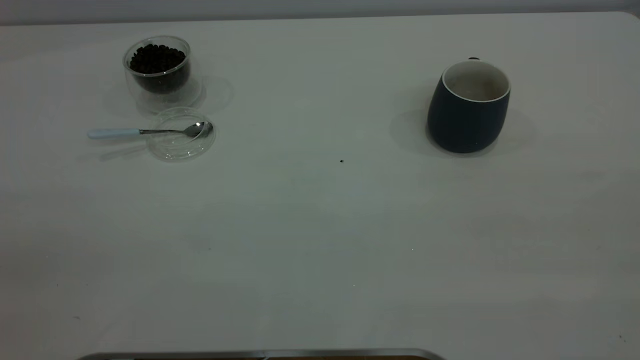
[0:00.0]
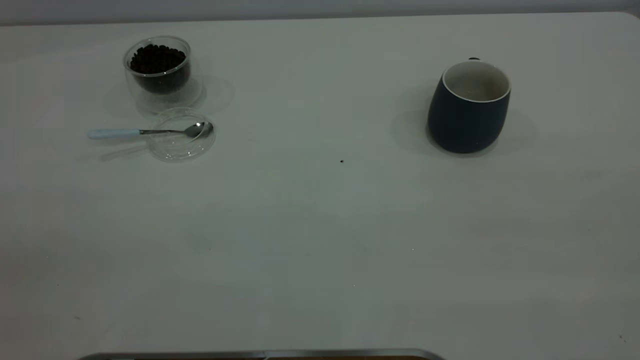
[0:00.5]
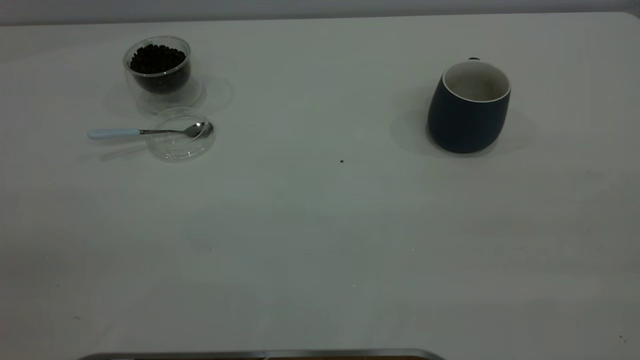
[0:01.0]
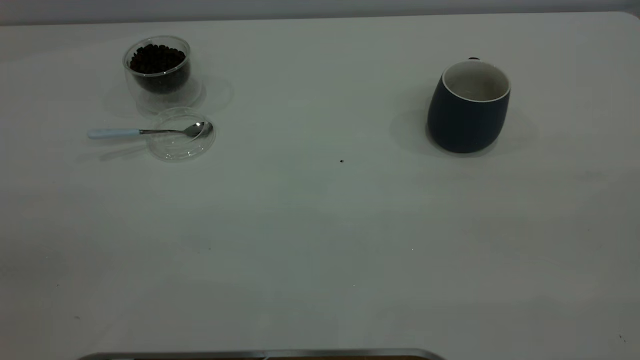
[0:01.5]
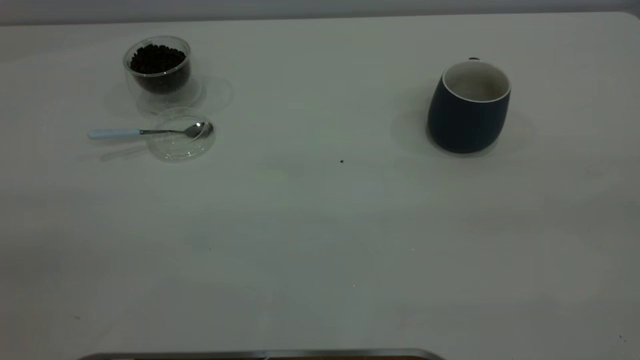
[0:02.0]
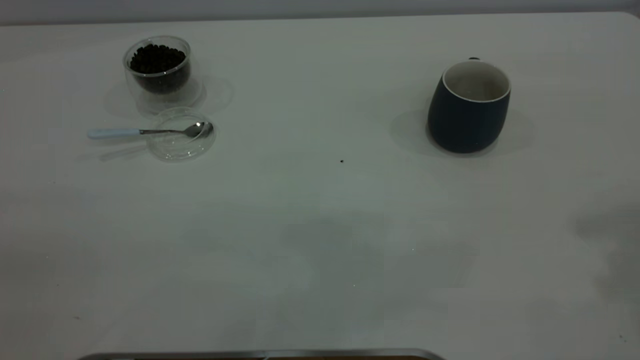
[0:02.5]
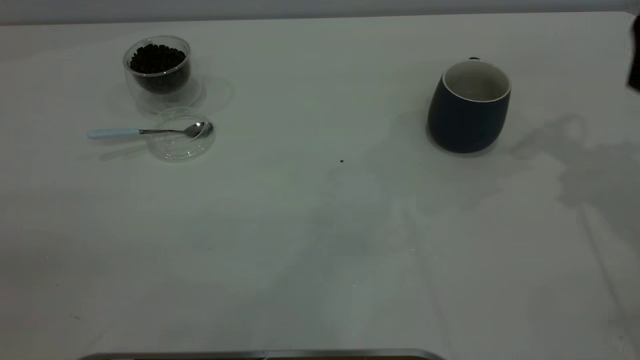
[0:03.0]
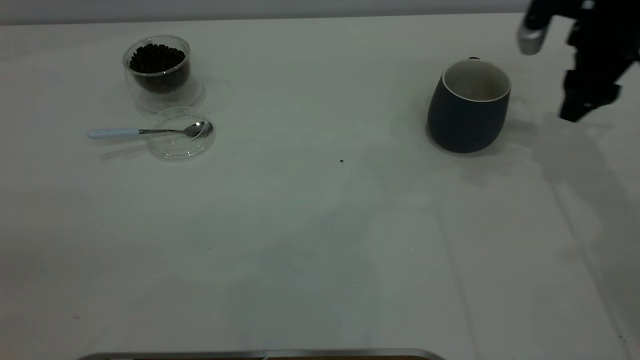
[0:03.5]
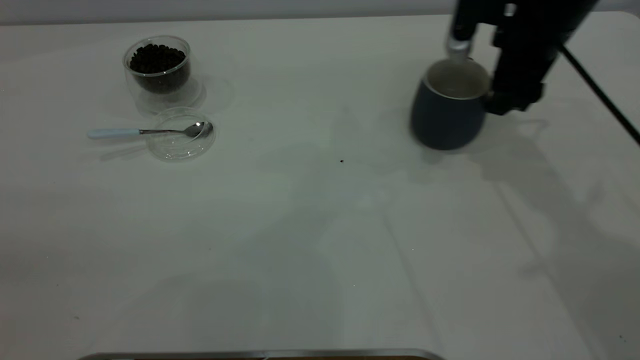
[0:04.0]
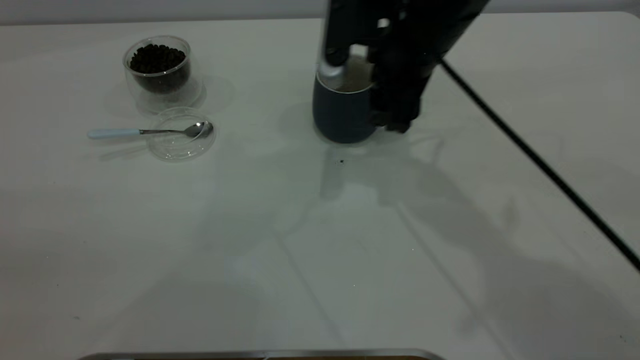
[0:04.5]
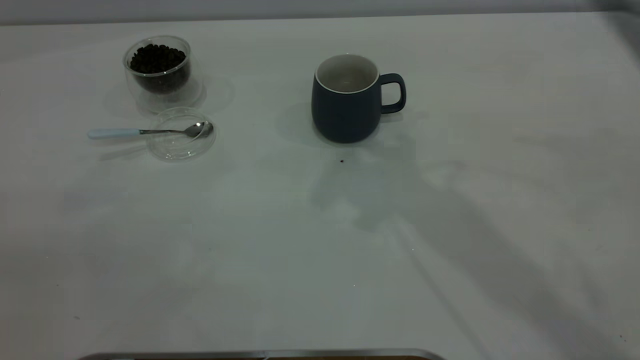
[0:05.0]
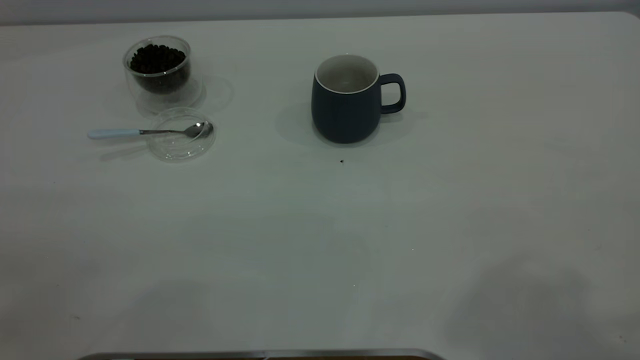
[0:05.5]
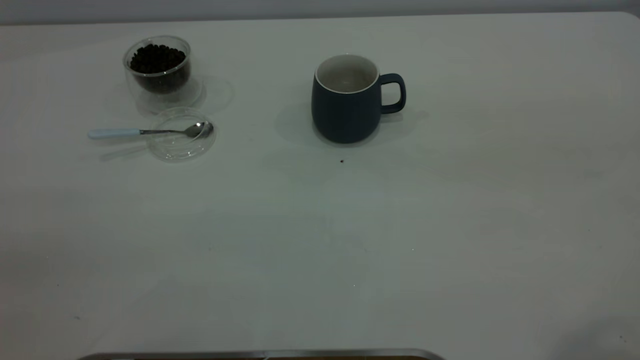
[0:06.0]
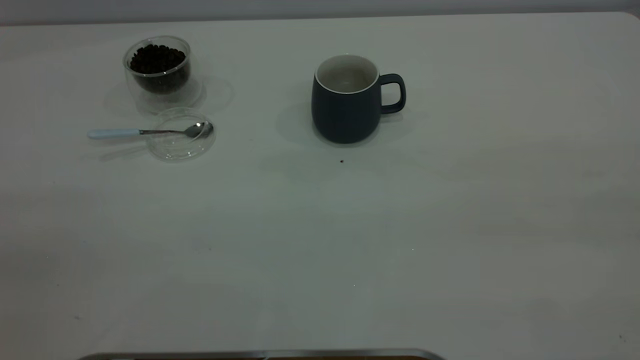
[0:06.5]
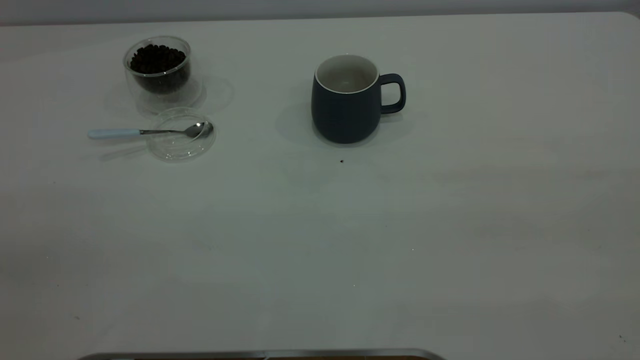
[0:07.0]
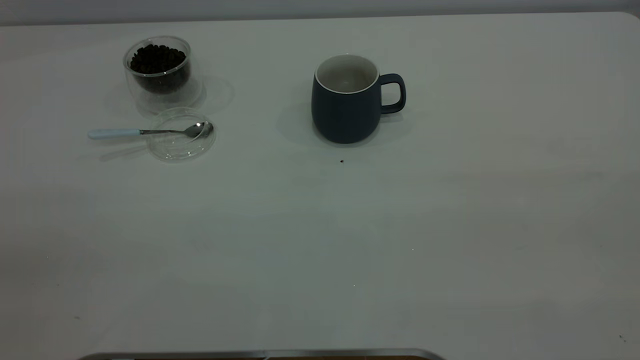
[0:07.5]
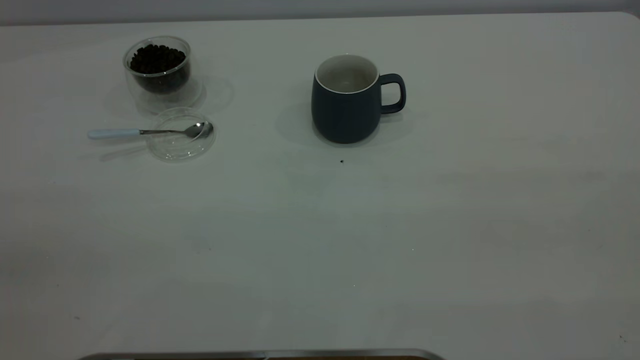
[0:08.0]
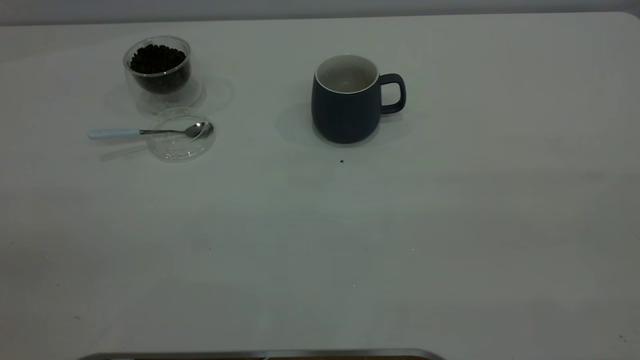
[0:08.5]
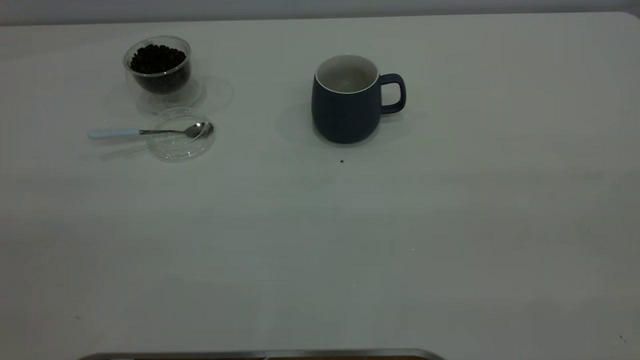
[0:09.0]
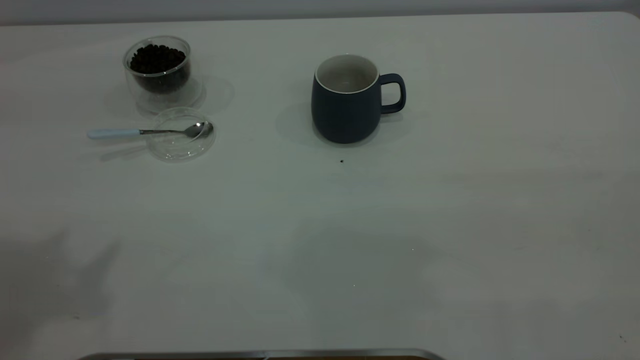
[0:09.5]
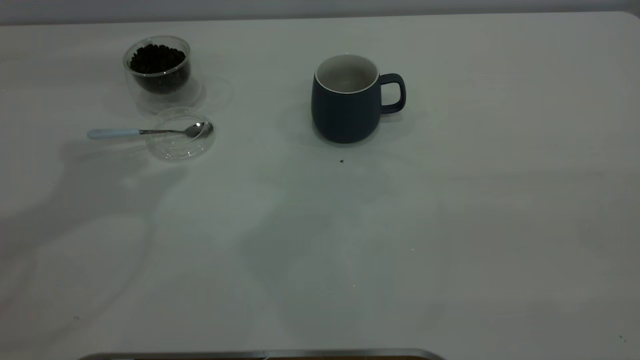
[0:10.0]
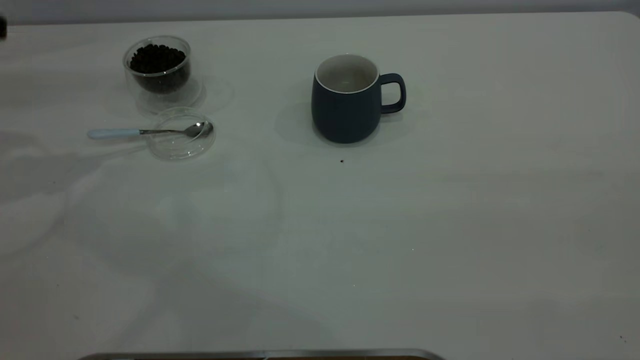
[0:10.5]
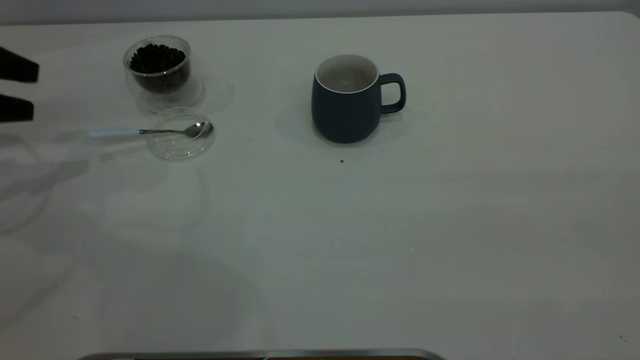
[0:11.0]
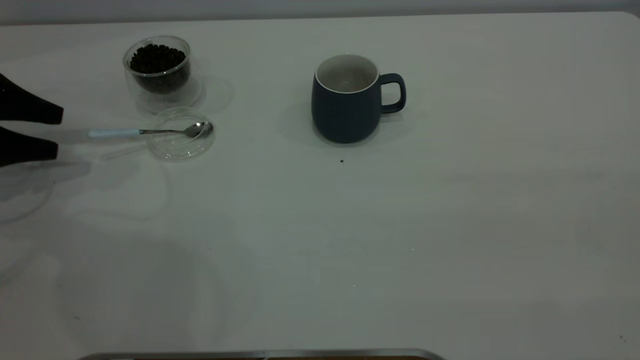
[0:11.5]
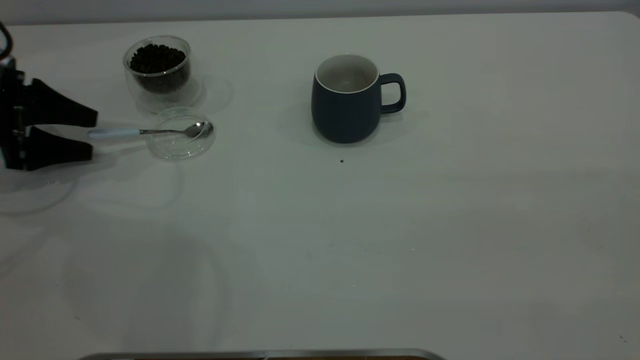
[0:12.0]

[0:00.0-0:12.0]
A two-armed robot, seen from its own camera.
Task of the whole recording: the right gripper place the grey cup in the center of the table, the left gripper take the blue spoon from the cup lid and scoop out the coffee beans from the coffee cup and put them into the grey cup, the left gripper put the spoon back into the cup lid.
Step, 0:00.0 to 0:04.5: Move the cup to the center of view.
0:02.0 to 0:04.0: The right gripper moves forward and downward, about 50 cm.
0:04.0 to 0:06.0: The right gripper heads backward and upward, covering approximately 40 cm.
0:10.0 to 0:12.0: The left gripper is displaced downward and to the left by roughly 30 cm.

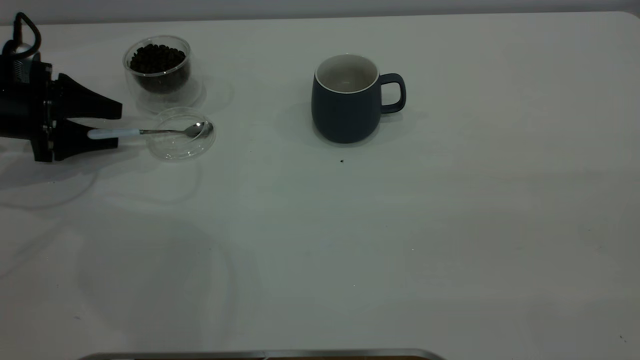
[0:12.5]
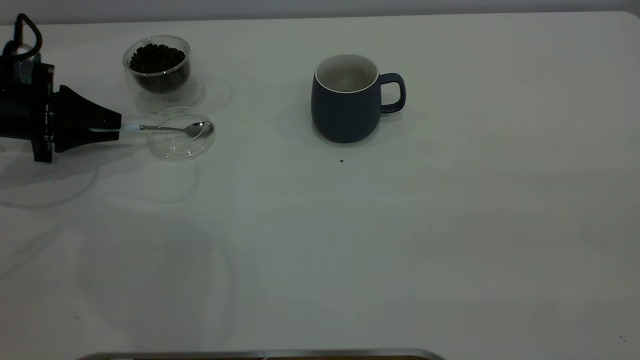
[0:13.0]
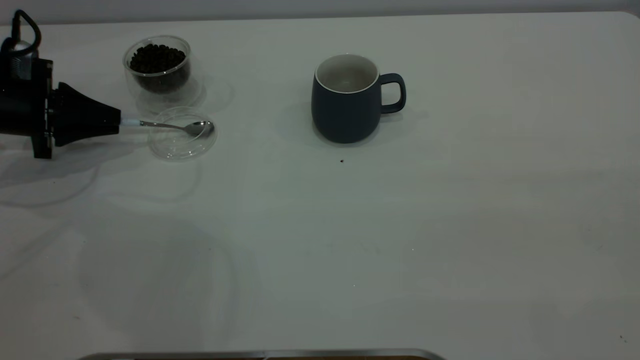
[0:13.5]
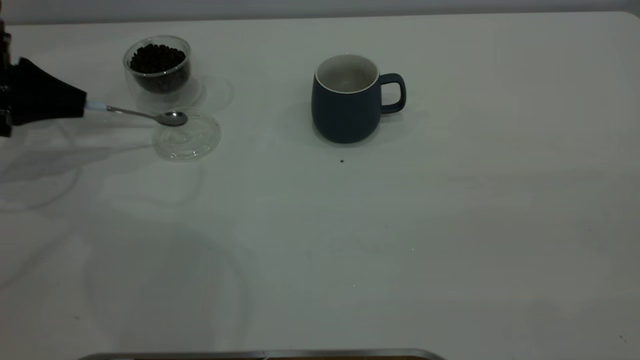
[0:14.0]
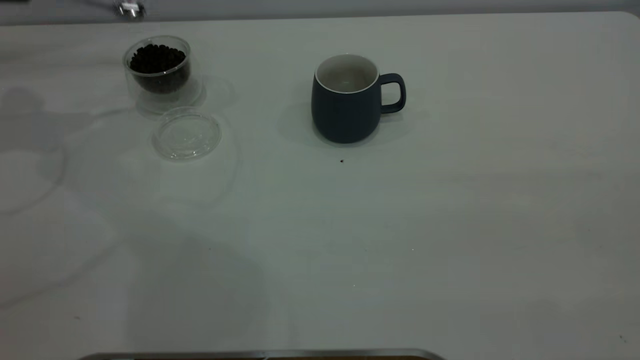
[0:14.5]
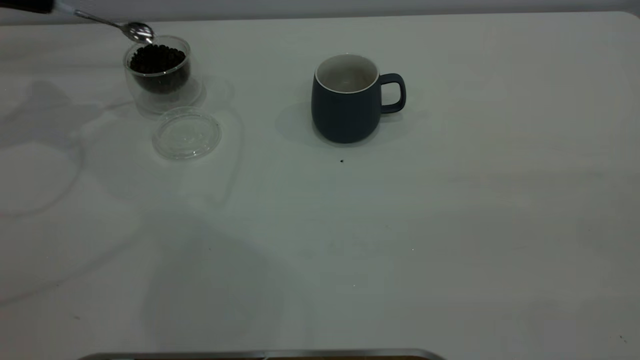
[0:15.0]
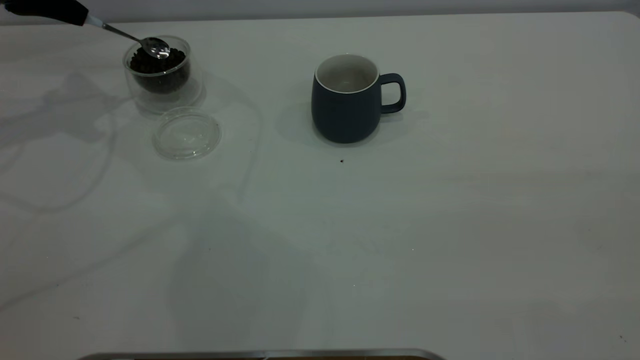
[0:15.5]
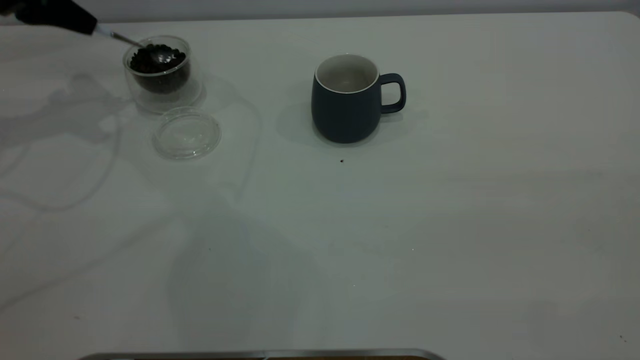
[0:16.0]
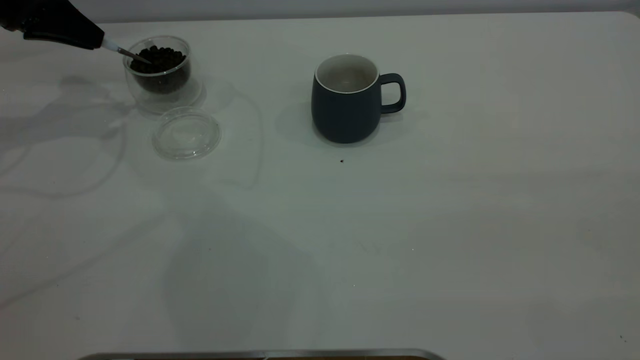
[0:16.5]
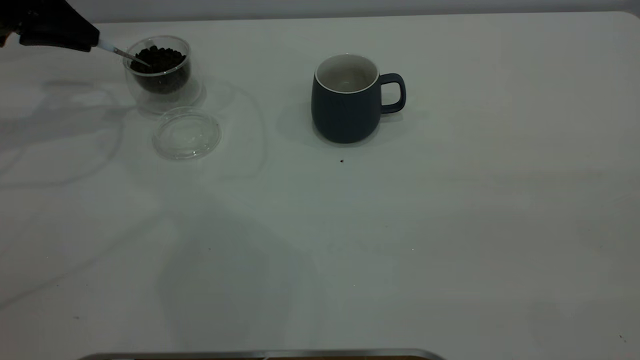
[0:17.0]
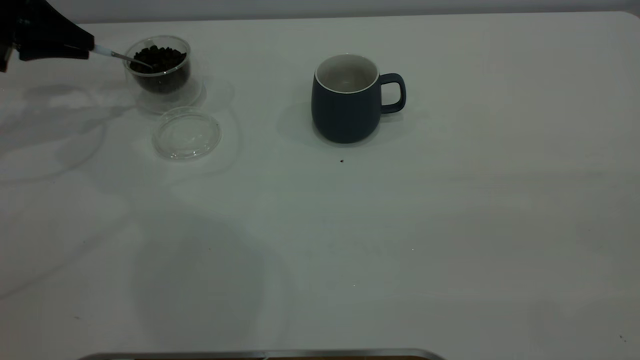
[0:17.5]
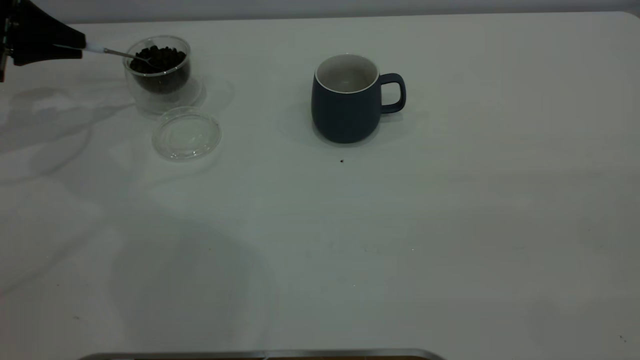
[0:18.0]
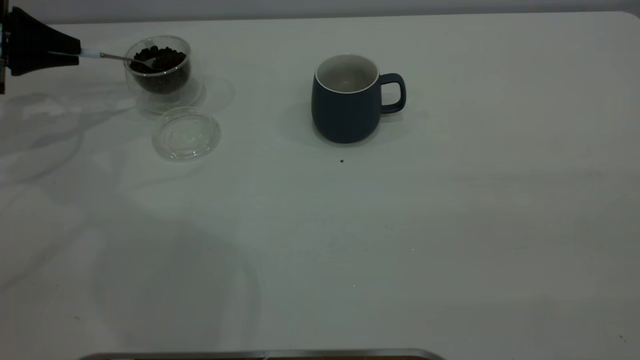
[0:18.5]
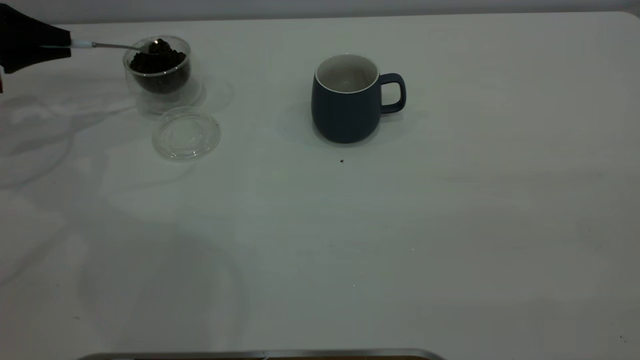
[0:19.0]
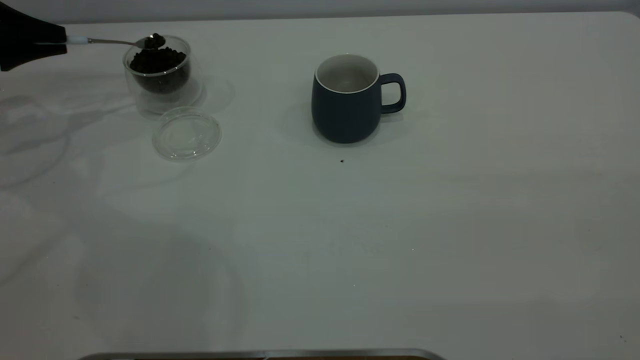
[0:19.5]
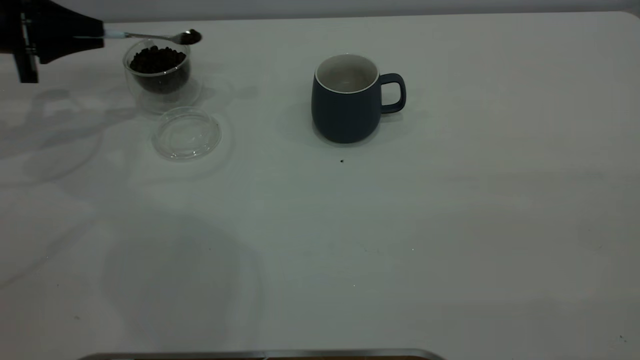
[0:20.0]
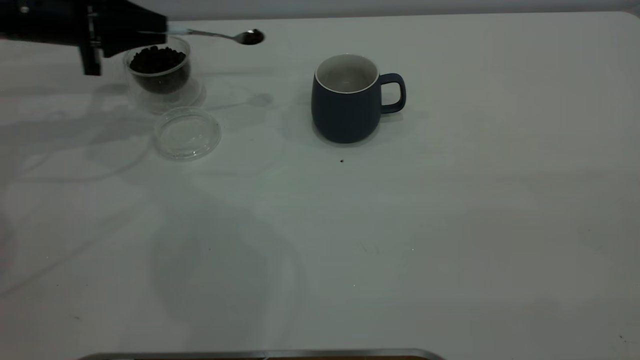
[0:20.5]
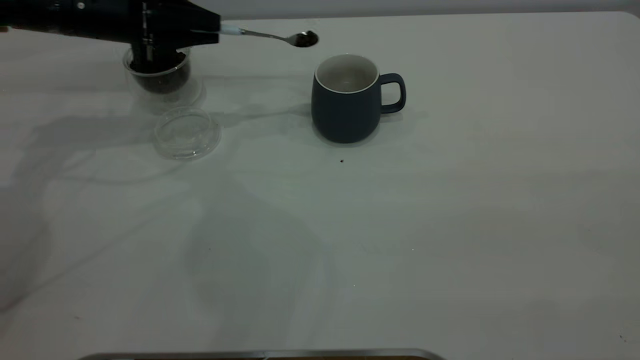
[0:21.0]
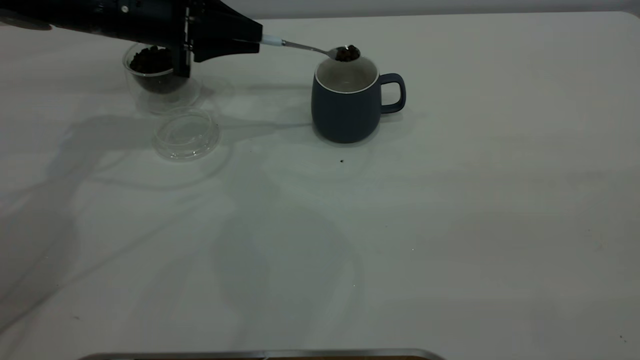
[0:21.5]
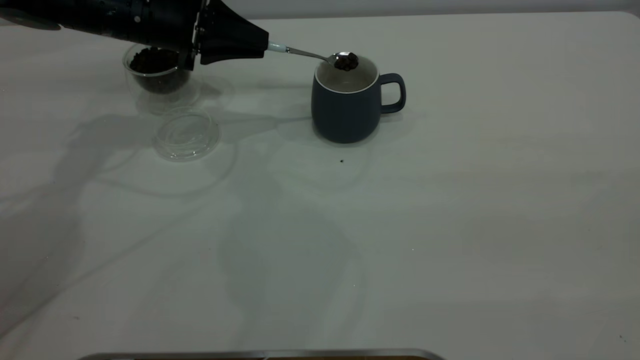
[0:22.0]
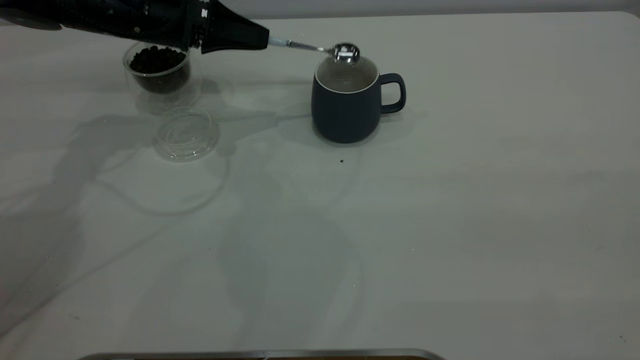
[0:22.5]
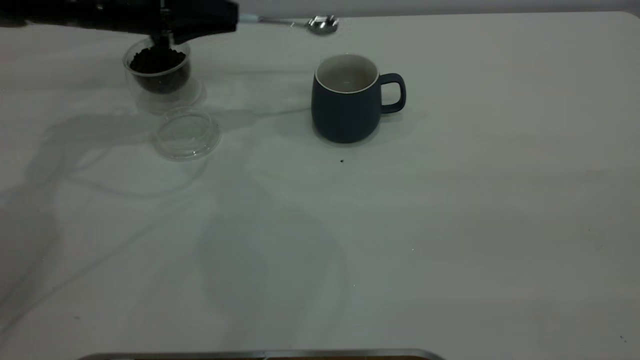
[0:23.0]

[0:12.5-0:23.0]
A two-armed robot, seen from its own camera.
Task of the whole recording: the right gripper place the grey cup in the center of the table, the left gripper take the blue spoon from the cup lid and scoop out the coffee beans from the coffee cup and put them into the grey cup, the left gripper put the spoon back into the cup lid.
Step, 0:14.5 to 0:22.5: Scoop a spoonful of beans into the cup.
0:12.5 to 0:14.5: The left gripper goes some 20 cm upward, and closes up.
0:14.5 to 0:16.5: The left gripper heads to the right and downward, covering approximately 10 cm.
0:16.5 to 0:19.0: The left gripper is displaced to the left and downward by roughly 10 cm.
0:19.0 to 0:21.0: The left gripper shifts roughly 20 cm to the right.
